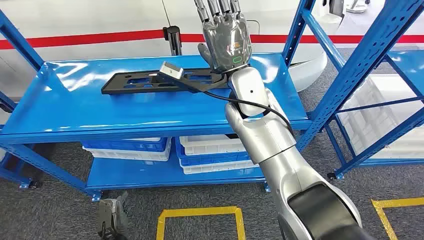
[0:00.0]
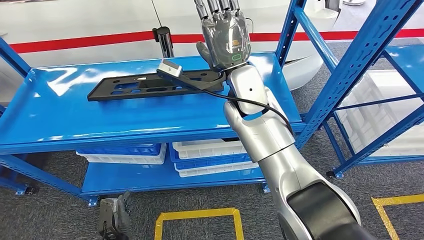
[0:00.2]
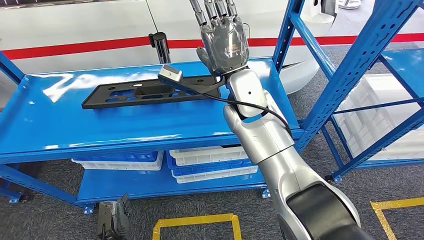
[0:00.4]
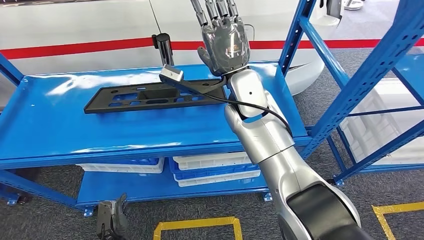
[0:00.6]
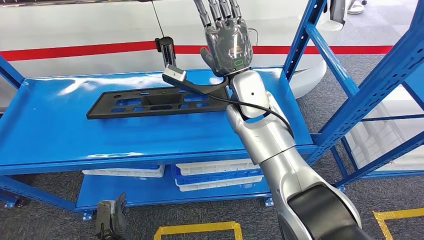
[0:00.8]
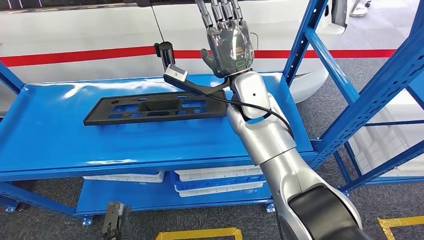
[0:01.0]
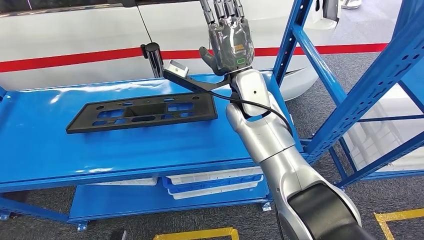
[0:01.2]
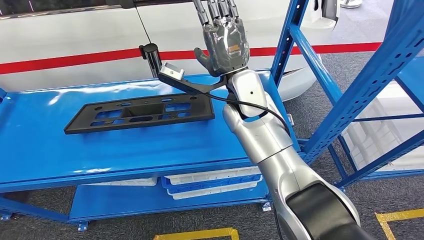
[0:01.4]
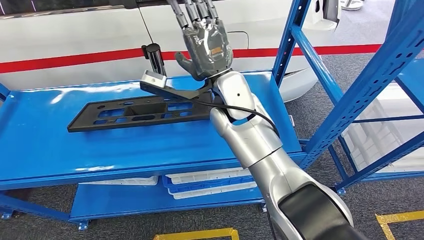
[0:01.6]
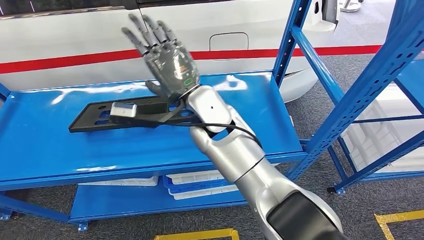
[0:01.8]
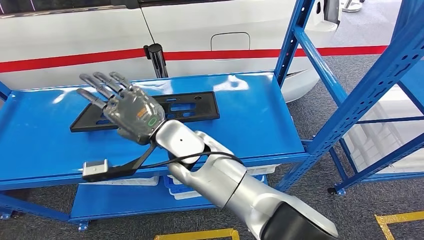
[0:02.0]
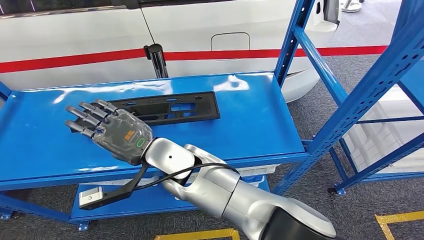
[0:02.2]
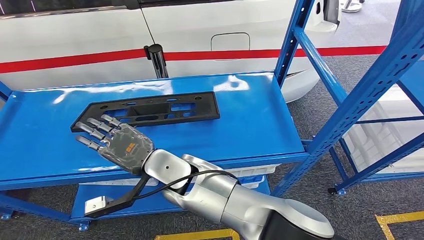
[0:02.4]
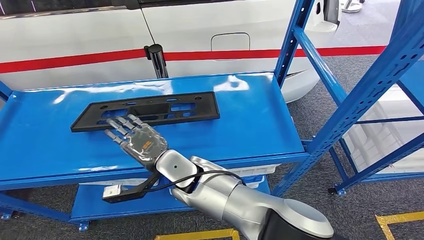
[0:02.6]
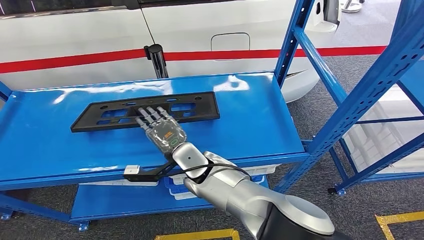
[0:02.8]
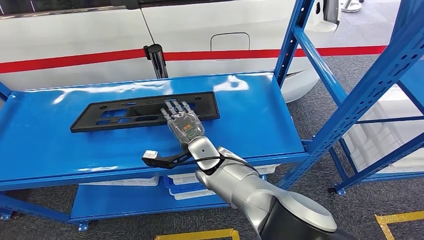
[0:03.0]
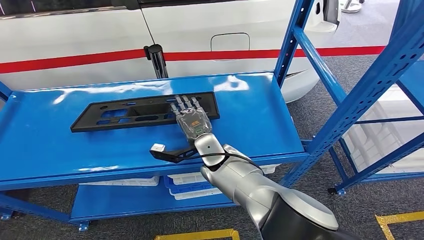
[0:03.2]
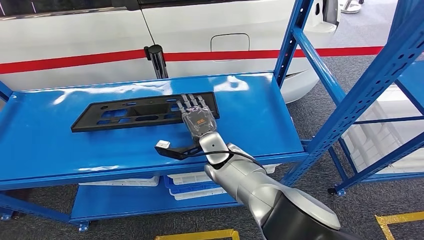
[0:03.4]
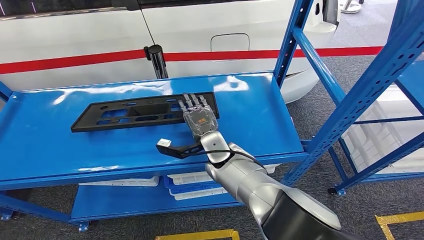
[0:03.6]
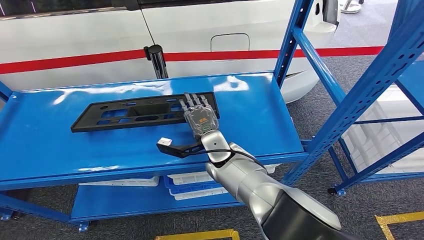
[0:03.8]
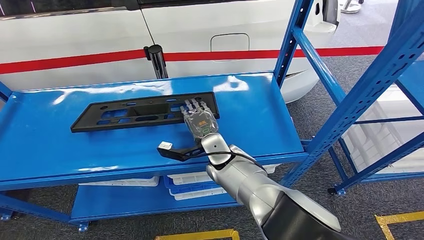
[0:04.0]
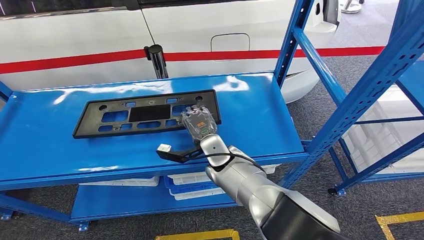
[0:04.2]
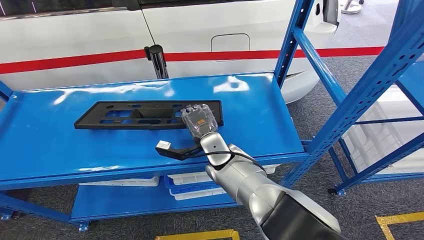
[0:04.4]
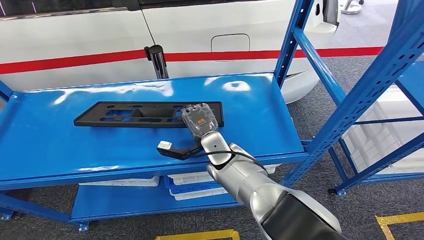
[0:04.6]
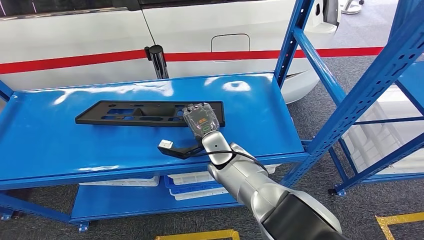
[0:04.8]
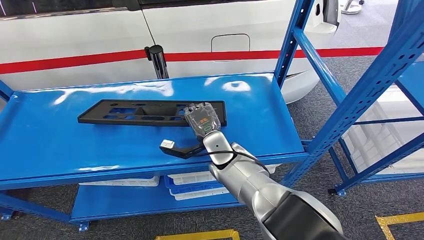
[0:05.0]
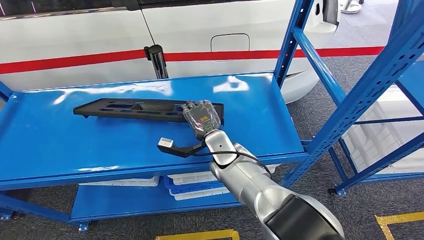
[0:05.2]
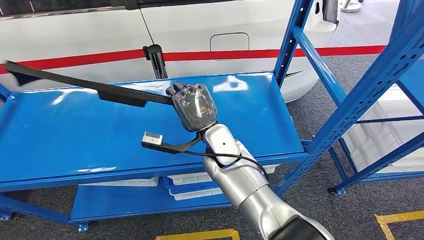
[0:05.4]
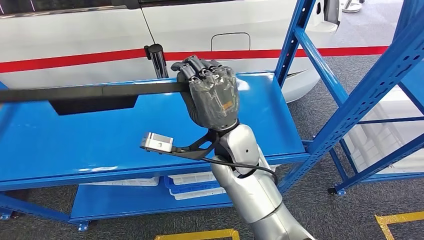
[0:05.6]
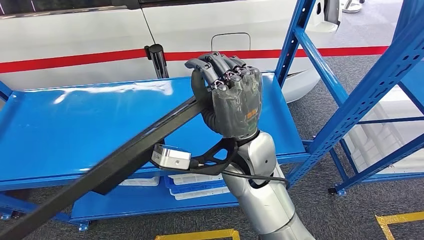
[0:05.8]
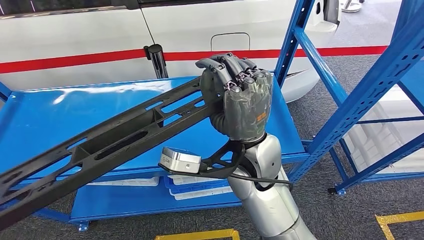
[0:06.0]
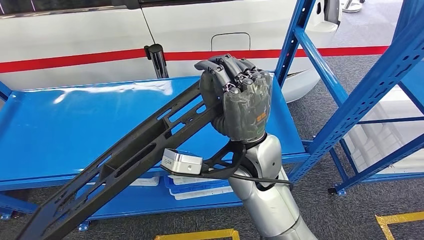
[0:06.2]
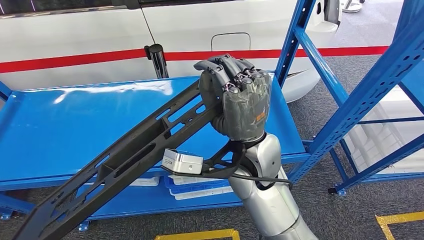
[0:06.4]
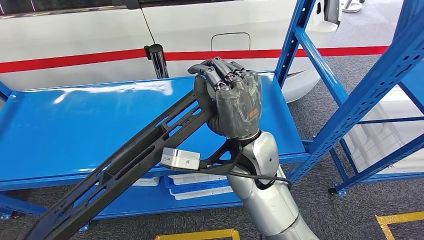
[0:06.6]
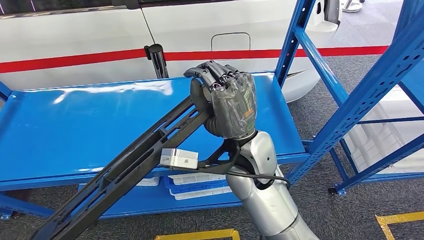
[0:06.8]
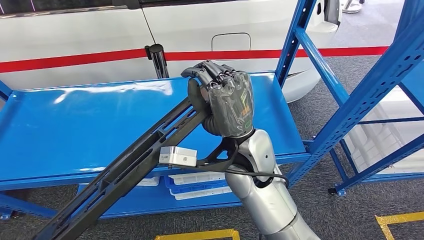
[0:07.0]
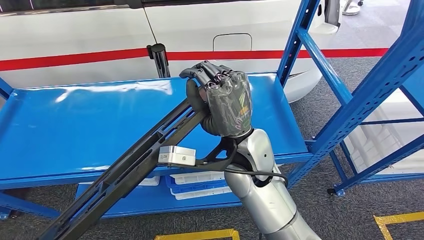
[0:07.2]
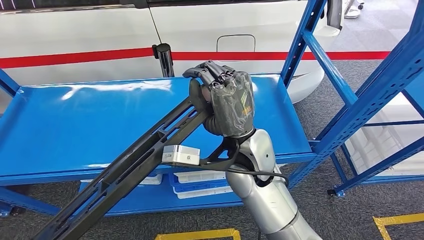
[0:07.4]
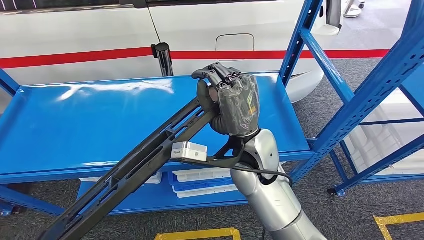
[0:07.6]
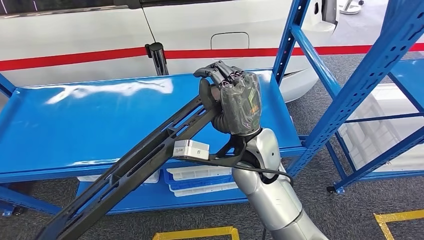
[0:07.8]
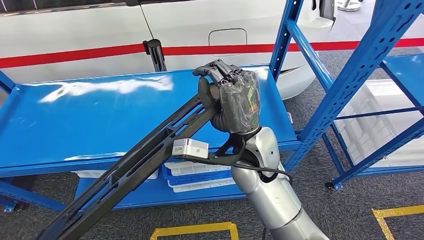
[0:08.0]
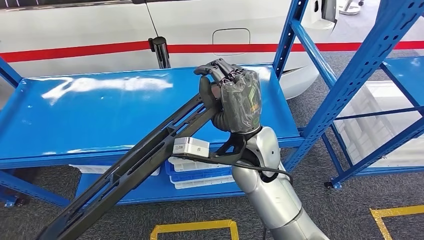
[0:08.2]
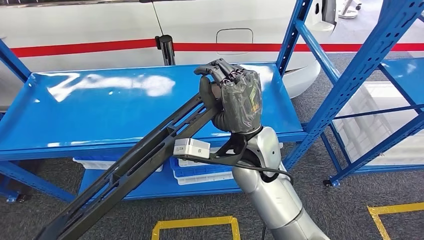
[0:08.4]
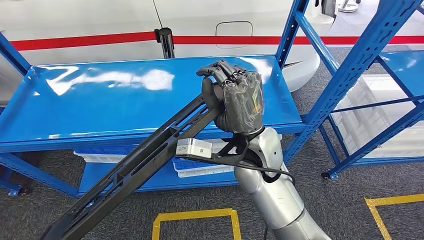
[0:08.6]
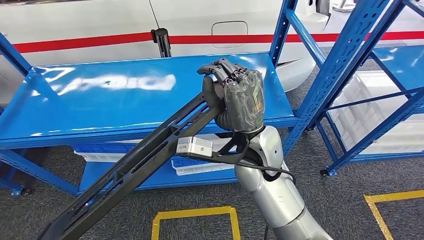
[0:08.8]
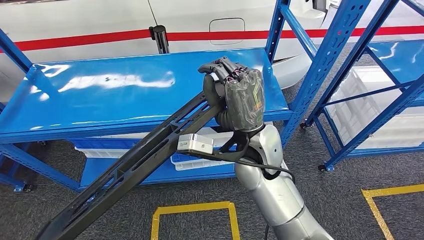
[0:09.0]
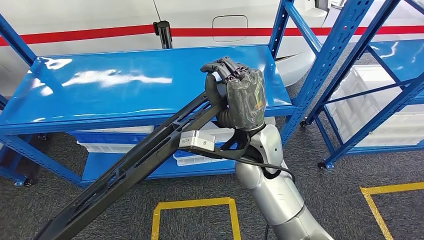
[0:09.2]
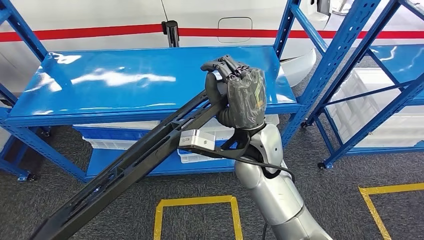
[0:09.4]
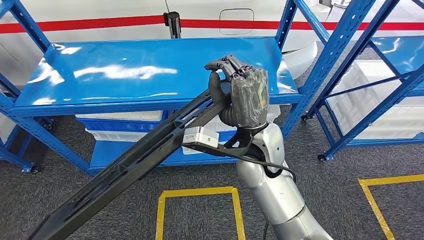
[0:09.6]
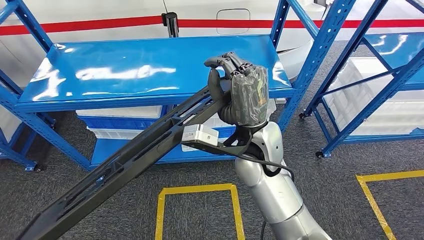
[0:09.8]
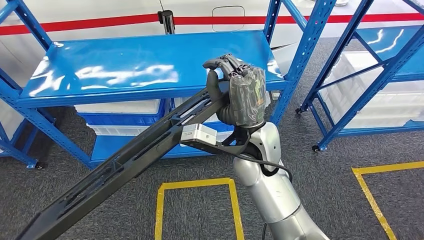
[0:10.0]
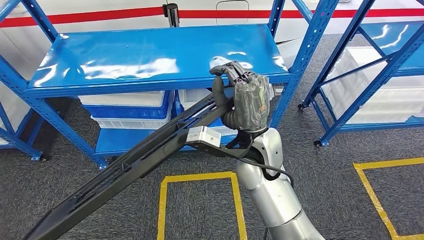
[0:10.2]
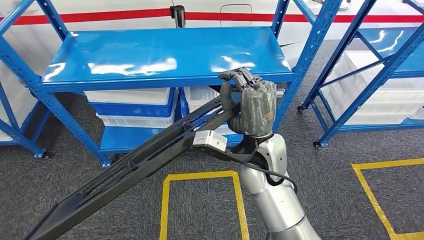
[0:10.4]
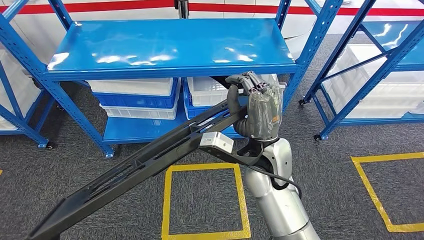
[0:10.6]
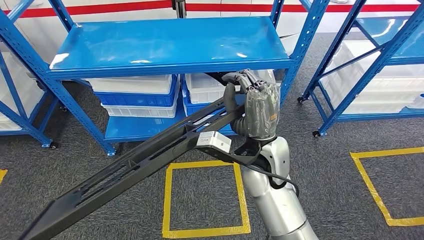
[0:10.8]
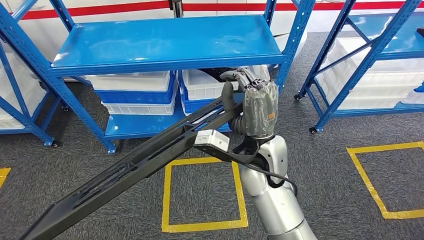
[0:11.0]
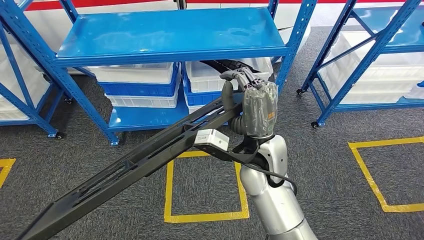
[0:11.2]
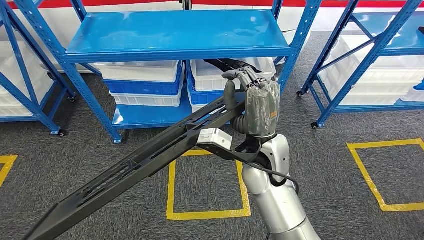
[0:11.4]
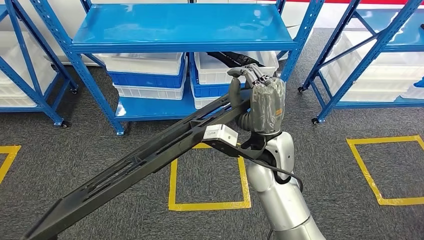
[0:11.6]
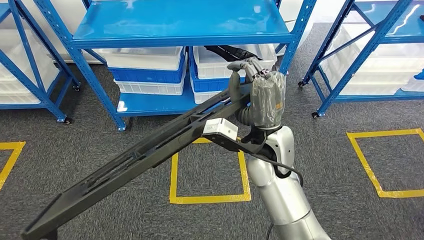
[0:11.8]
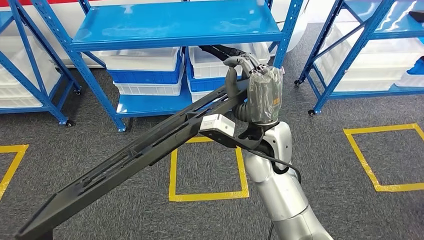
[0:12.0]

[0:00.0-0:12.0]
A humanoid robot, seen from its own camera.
Step, 0:00.0 to 0:10.8: Pick up the large material from the shelf.
0:03.0 to 0:04.4: There are only small adjustments of the hands.

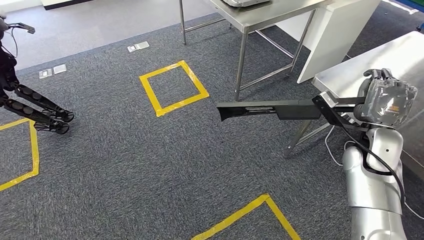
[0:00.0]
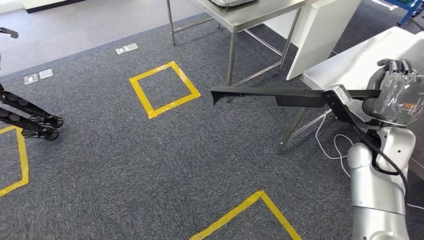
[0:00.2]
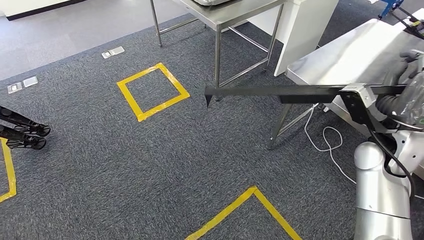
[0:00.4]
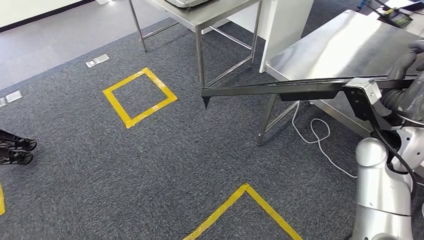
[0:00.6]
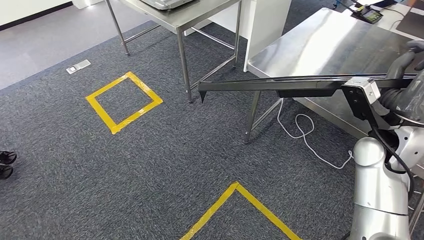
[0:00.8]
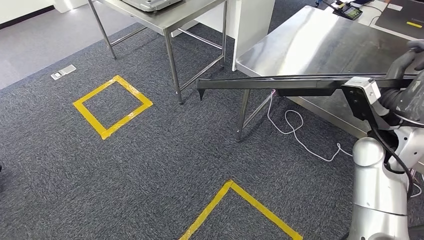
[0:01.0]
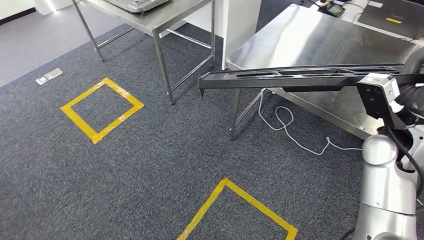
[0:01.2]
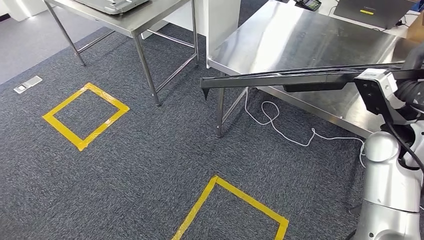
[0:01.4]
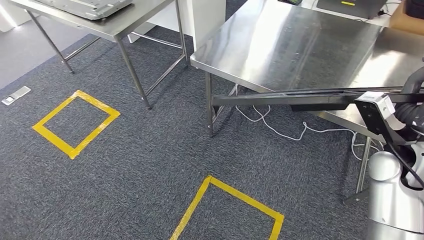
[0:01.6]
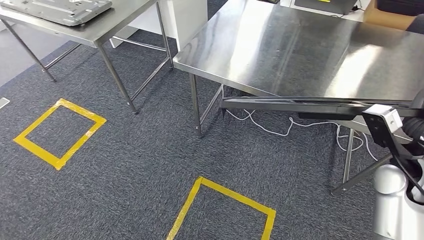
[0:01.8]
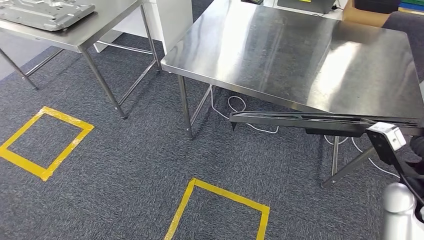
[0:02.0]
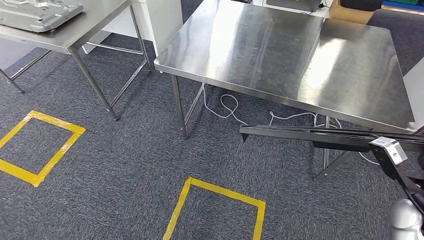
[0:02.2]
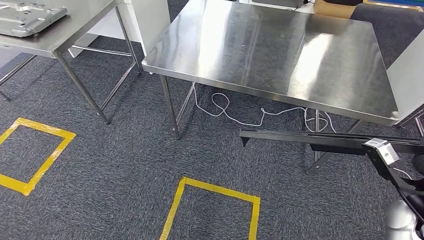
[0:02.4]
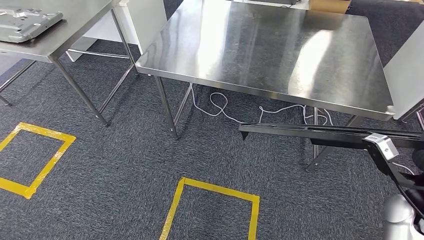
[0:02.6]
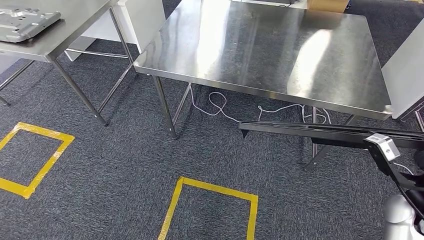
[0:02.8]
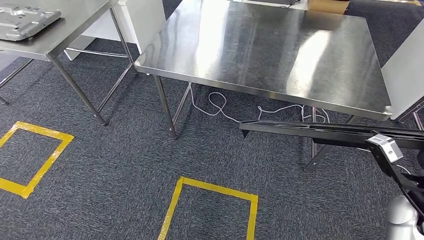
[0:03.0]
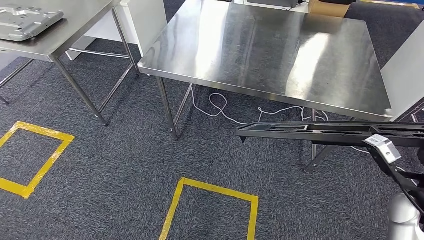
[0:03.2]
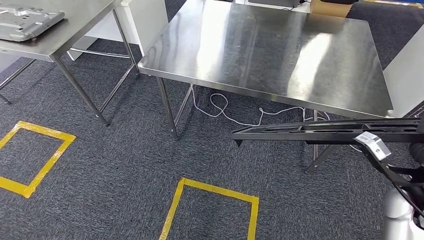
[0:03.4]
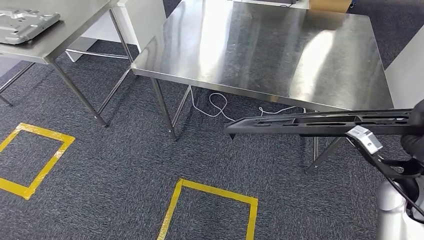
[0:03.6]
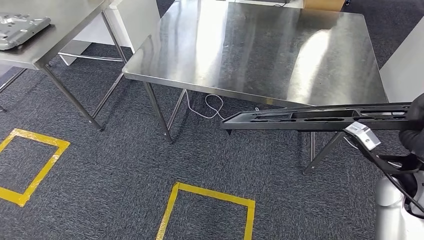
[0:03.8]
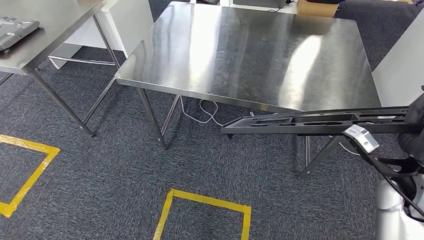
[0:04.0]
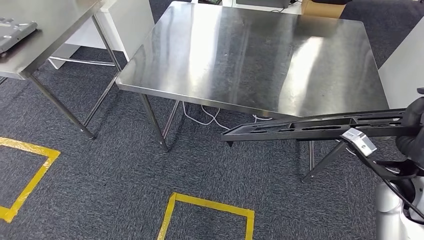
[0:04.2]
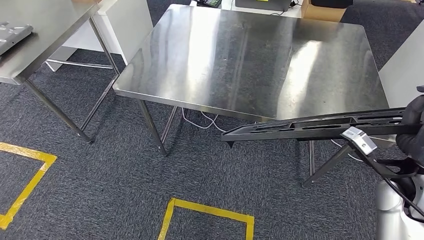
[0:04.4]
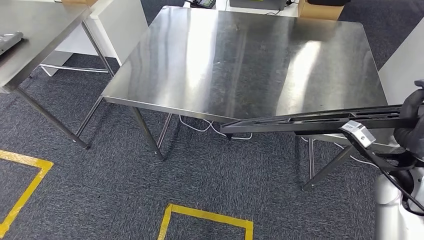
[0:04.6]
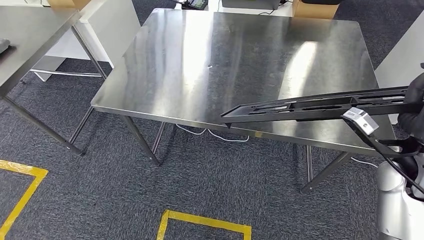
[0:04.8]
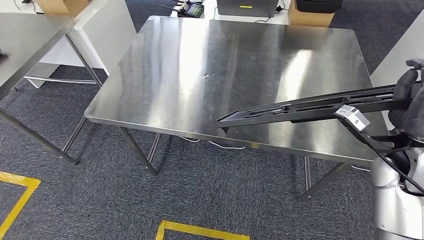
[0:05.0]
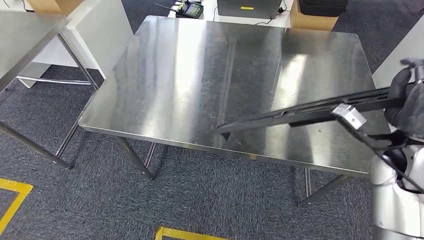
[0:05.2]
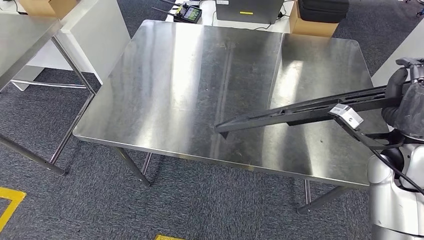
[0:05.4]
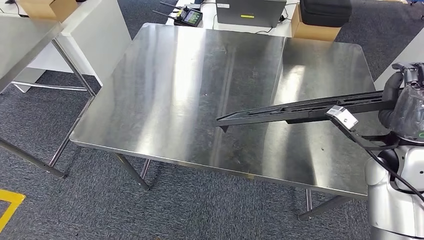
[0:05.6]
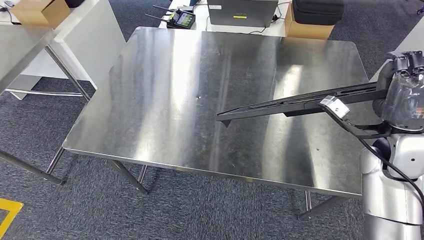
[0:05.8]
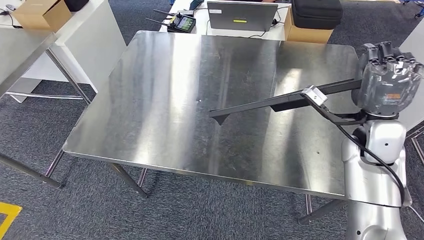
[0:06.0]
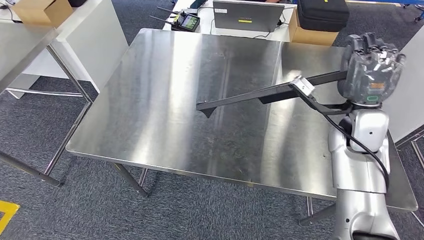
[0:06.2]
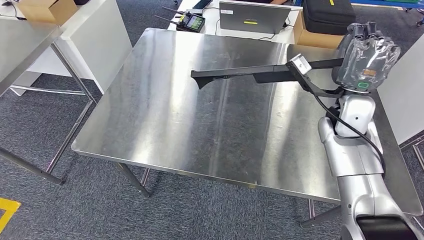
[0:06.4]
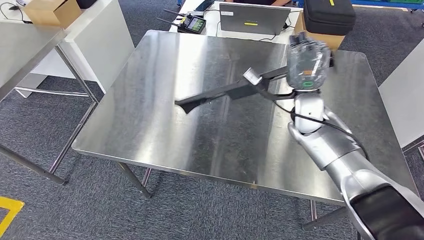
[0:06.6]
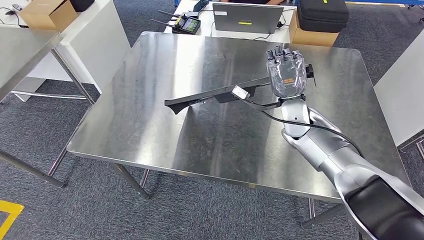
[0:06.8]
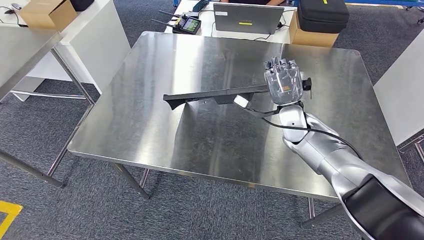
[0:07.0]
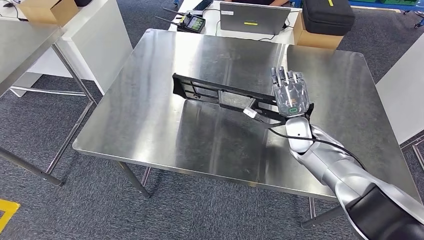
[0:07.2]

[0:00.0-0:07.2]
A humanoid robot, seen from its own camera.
Step, 0:00.0 to 0:04.8: Move the large material to the workbench.
